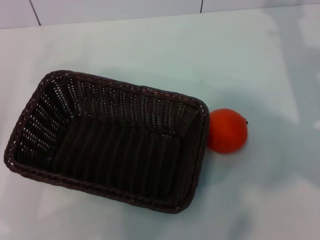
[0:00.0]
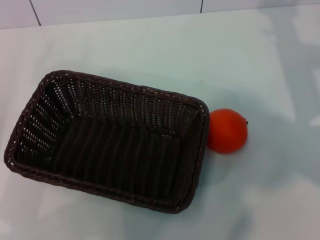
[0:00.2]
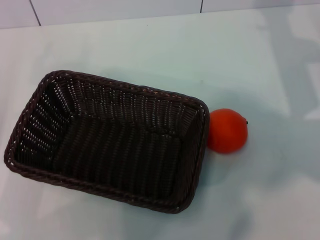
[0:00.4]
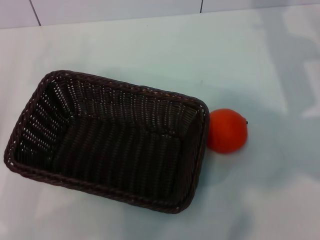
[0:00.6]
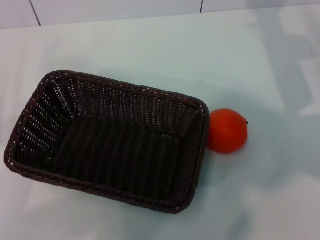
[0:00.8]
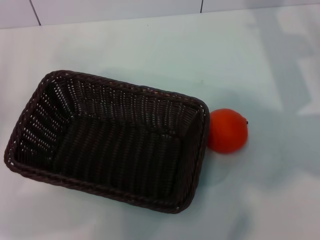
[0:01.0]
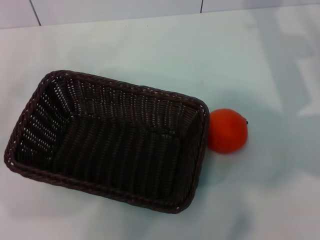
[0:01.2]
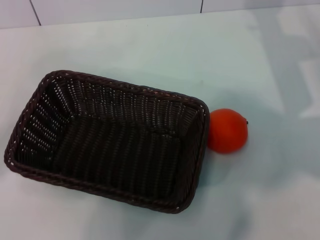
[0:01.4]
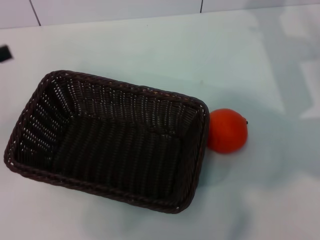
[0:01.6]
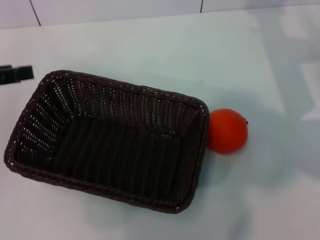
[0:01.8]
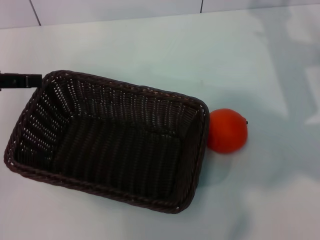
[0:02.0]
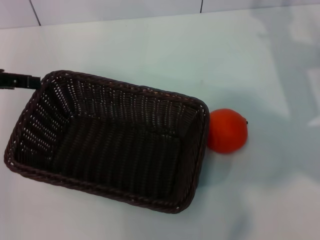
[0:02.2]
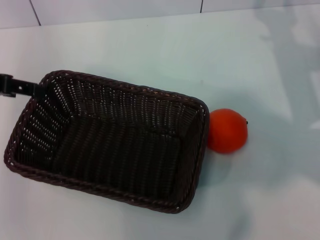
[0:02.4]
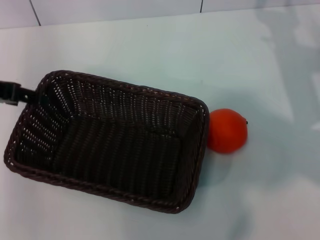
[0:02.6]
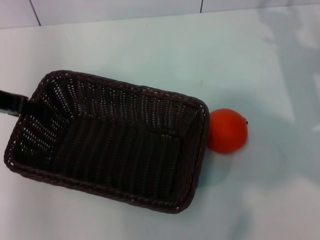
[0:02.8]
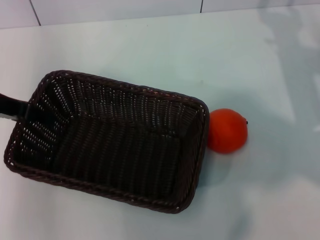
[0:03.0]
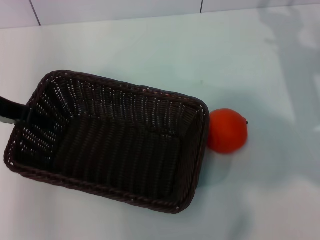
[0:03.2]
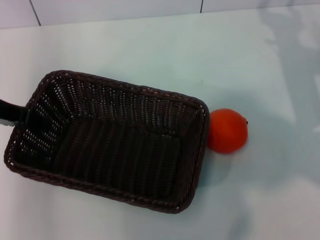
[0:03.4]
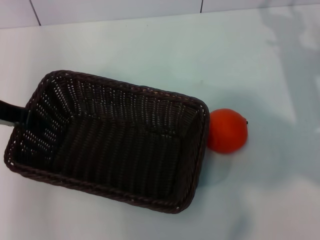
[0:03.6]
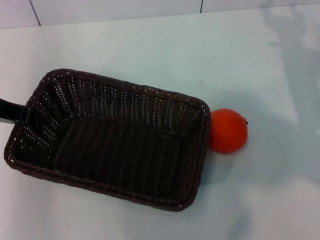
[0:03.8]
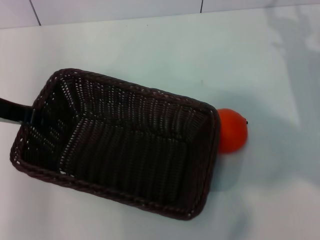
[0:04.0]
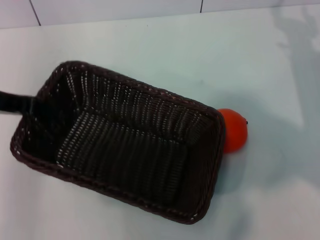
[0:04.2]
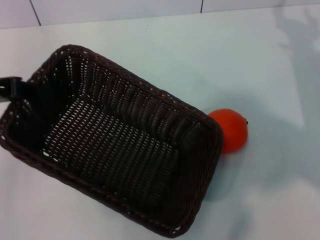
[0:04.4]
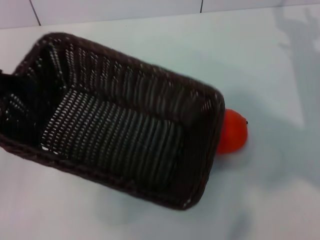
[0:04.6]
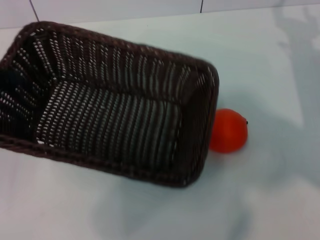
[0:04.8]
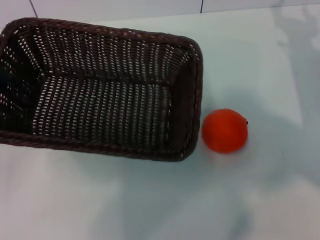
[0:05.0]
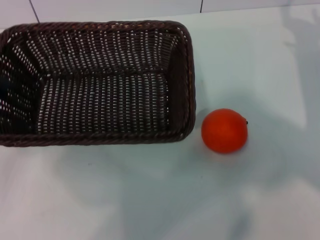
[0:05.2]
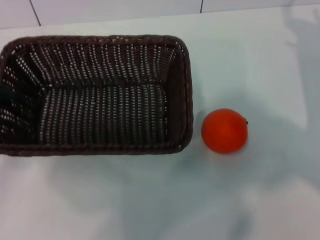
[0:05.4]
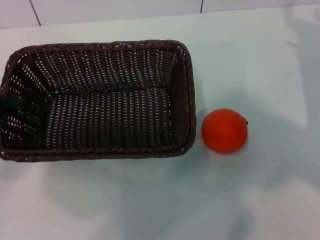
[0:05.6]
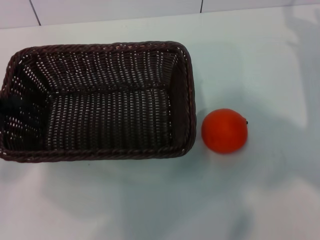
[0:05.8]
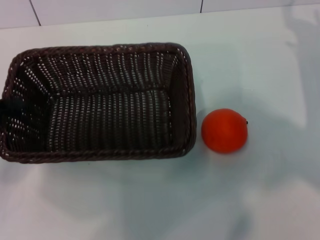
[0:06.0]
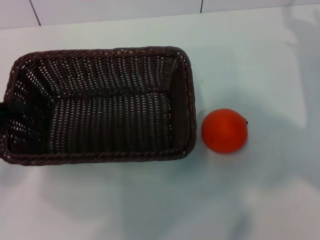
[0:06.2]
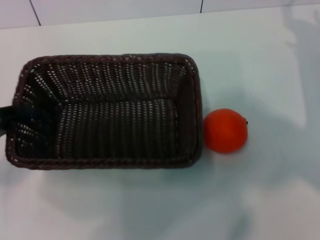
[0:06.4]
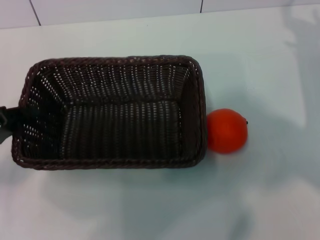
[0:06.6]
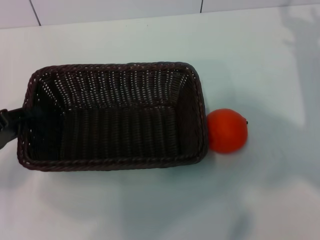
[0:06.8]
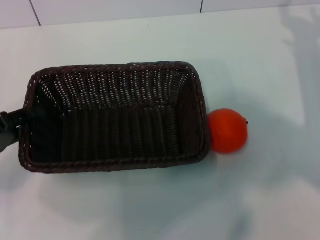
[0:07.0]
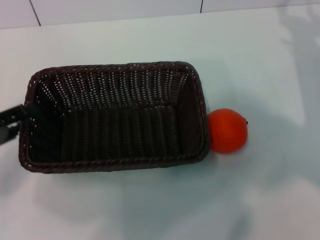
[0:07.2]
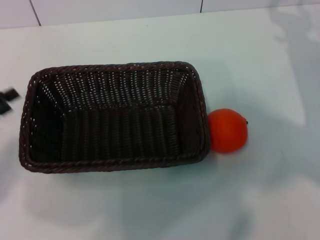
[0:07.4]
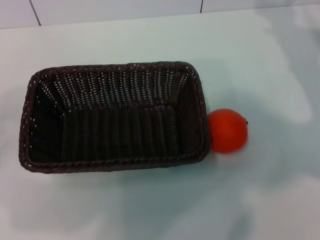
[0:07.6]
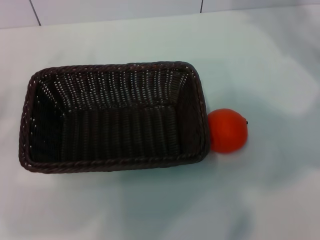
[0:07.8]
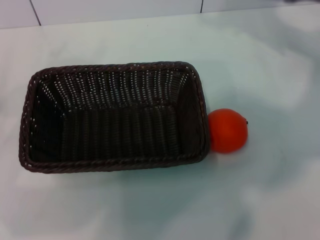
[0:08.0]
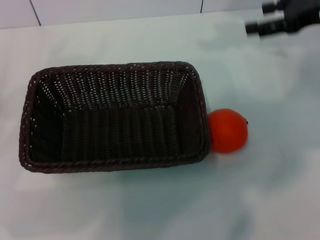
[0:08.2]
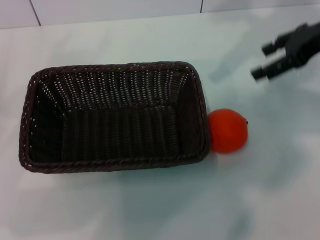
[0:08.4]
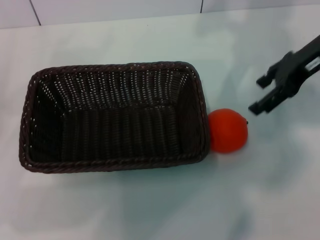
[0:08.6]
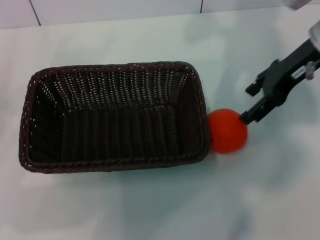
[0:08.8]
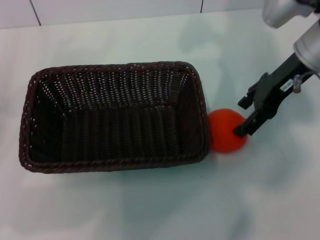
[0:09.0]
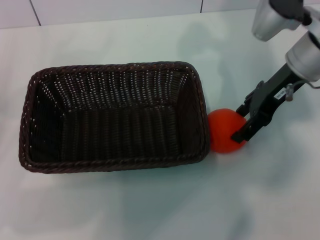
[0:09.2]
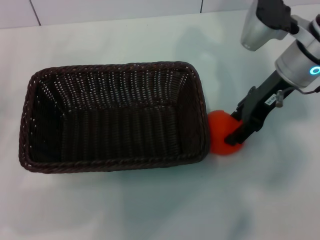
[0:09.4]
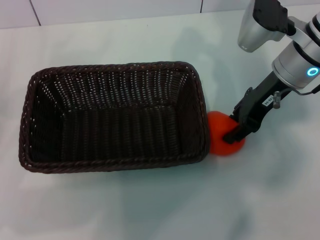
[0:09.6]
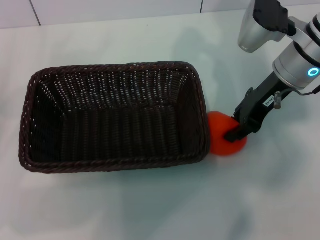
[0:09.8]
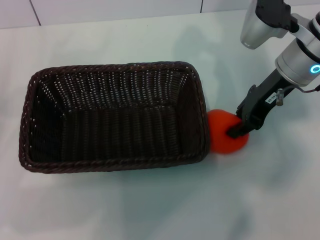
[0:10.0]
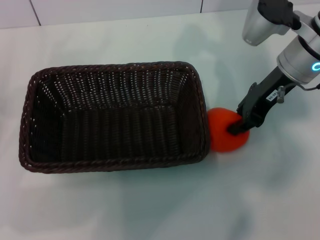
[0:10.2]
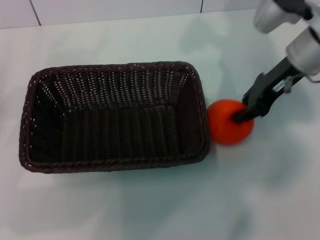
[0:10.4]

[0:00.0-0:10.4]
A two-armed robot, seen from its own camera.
Task of the whole recording: the left gripper pick up the black basket and place it horizontally in the middle of the table, the right gripper pick up the orange and place it into the black basket.
Step, 0:00.0 to 0:03.8: Pick up the dark basket with the left gripper.
Step, 0:04.2 to 0:07.0: Place the dark basket in the center of view with the left gripper.
Step, 0:07.2 to 0:10.2: Pick up the orange with the right gripper.
0:01.4 to 0:03.0: The left gripper travels to the right and forward by about 15 cm.
0:03.0 to 0:04.4: The left gripper closes its fingers.
0:04.4 to 0:06.0: The left gripper goes approximately 10 cm downward.
0:06.0 to 0:07.4: The left gripper opens up.
0:07.4 to 0:09.0: The right gripper is displaced to the left and upward by some 15 cm. The left gripper opens.
0:09.0 to 0:10.4: The right gripper closes up.

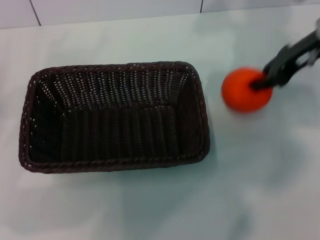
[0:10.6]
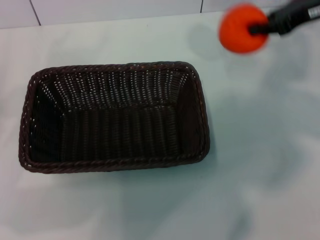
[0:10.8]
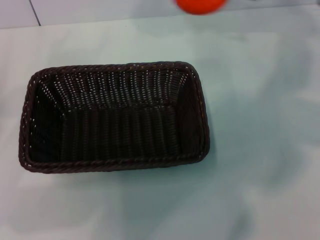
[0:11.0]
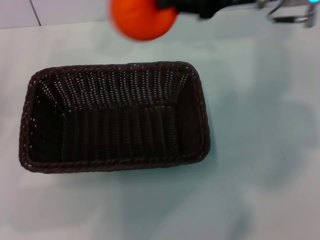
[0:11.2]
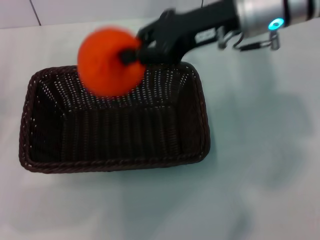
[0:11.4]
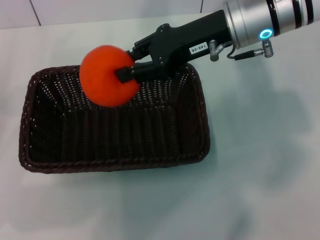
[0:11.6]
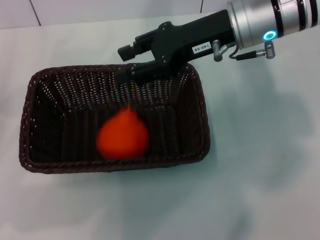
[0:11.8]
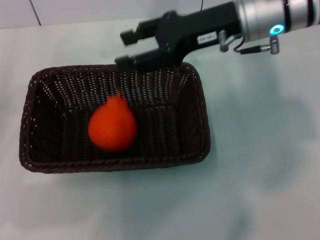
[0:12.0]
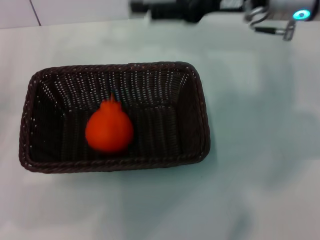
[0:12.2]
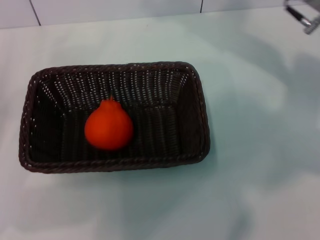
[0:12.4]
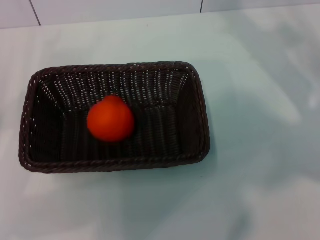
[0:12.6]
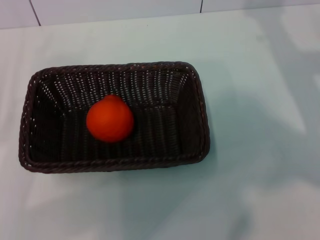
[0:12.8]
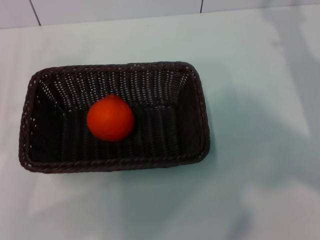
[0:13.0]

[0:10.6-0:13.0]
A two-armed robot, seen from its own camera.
Task of the whole recording: the left gripper pick up the black basket and place it horizontally in the middle of the table, the right gripper pick up the orange and place it into the black basket.
Step, 0:10.6 to 0:11.8: Place the orange into the dark basket with the right gripper.
0:10.6 to 0:11.8: The right gripper shifts about 10 cm to the left.
0:11.8 to 0:13.0: The right gripper heads to the right and downward, covering approximately 20 cm, and opens its fingers.
